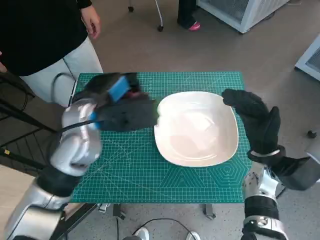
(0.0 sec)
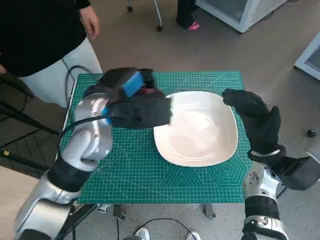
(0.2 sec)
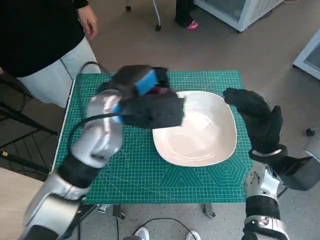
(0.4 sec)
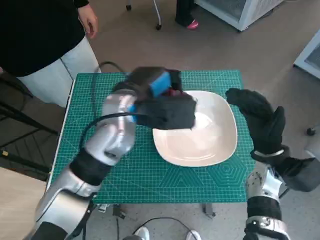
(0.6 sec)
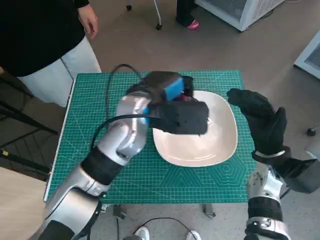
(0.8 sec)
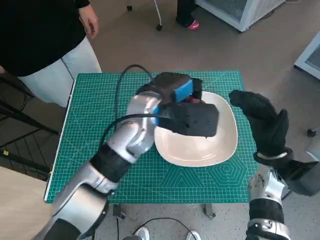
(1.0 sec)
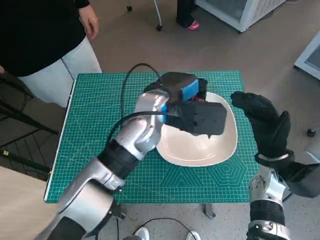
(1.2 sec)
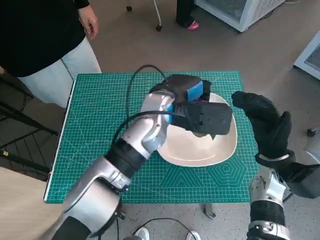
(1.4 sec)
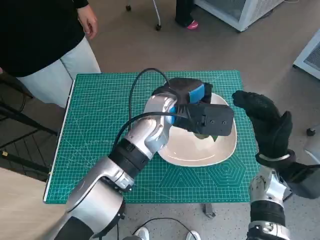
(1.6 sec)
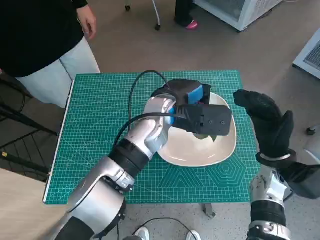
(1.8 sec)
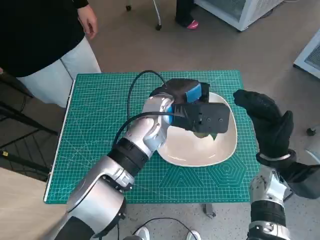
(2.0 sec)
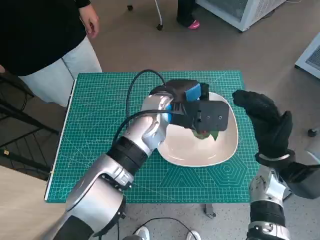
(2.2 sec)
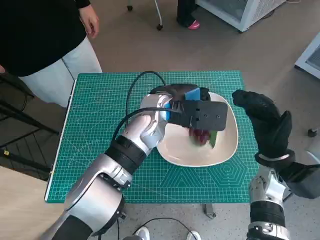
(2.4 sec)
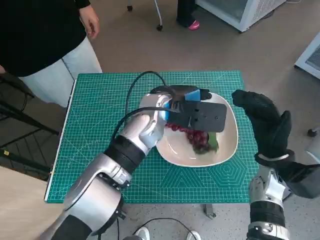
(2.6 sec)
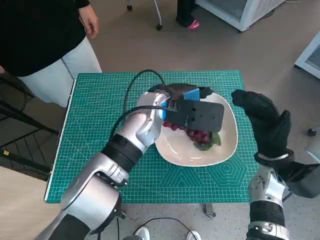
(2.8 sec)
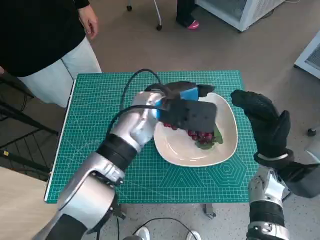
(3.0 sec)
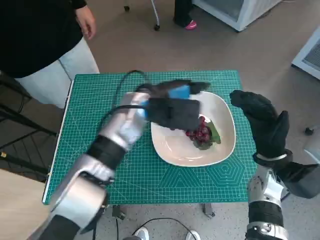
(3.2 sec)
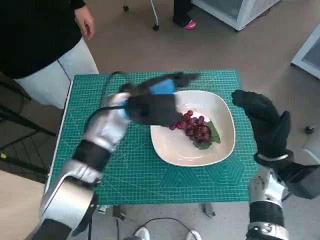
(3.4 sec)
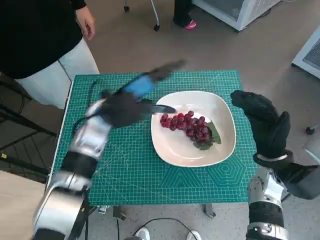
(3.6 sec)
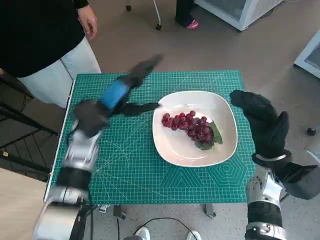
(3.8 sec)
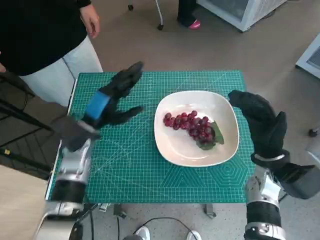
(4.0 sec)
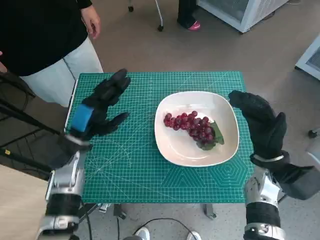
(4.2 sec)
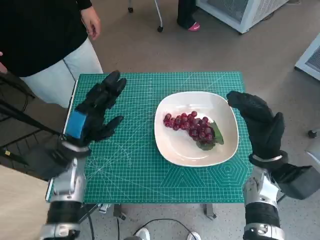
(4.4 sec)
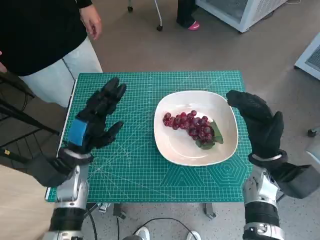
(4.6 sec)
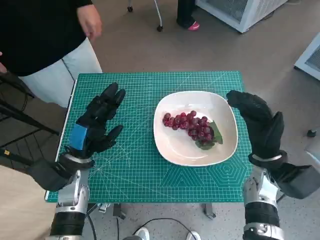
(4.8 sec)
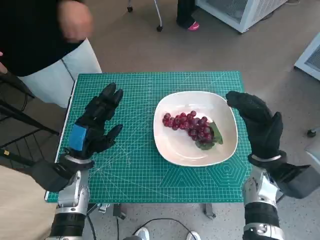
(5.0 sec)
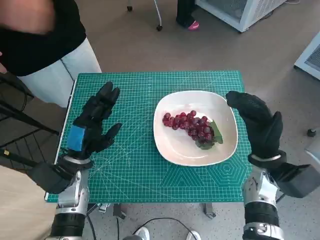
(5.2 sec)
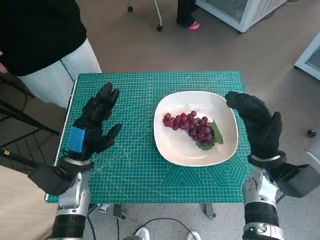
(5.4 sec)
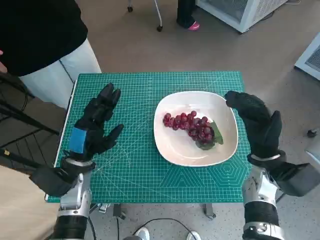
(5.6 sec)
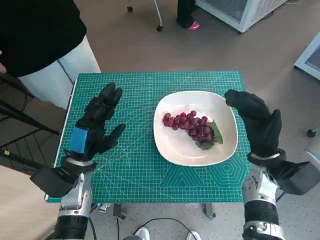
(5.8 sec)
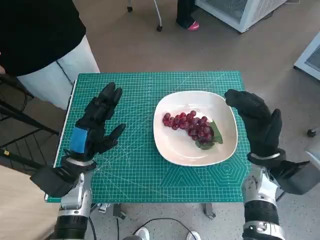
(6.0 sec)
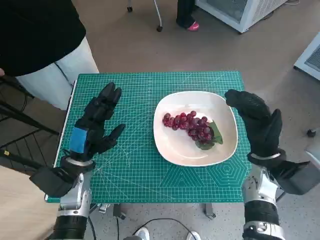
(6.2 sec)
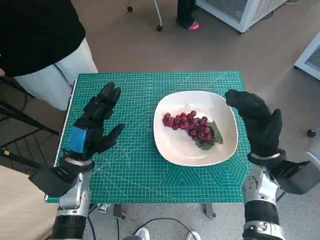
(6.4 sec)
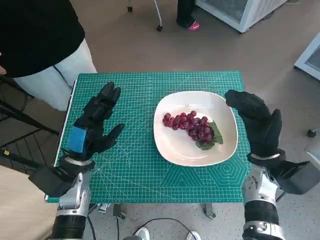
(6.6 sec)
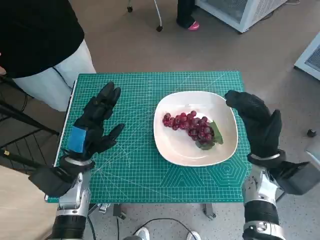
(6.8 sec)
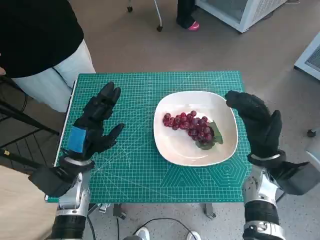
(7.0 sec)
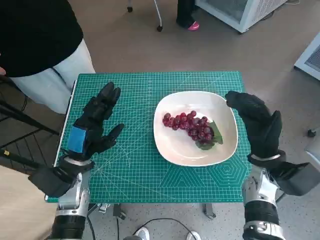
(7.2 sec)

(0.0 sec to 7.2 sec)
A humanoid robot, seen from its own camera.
Task of the whole recording: Pick up the grapes and put them on the plate.
Step, 0.0 sec - 2.6 sec: Place the grapes in the plate with left hand.
0.0 sec - 1.4 sec: The left hand travels to the right by approximately 15 cm.
1.4 sec - 2.8 sec: The hands stay close to where they were, moving slightly.
2.8 sec - 4.4 sec: The left hand is displaced to the left, downward and backward by approximately 20 cm.
4.4 sec - 5.8 sec: The hands make only small movements.
5.8 sec - 7.2 sec: Neither hand changes place.
